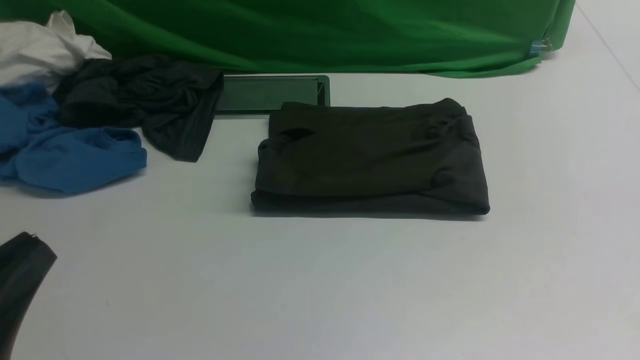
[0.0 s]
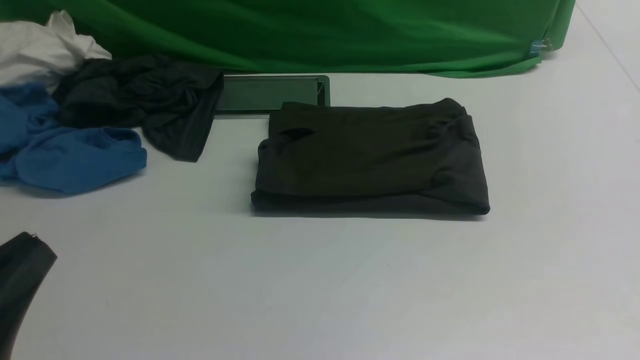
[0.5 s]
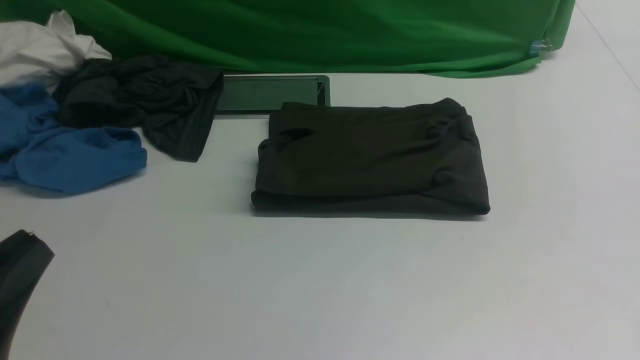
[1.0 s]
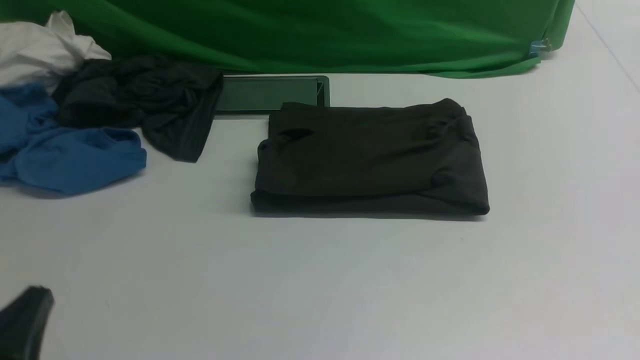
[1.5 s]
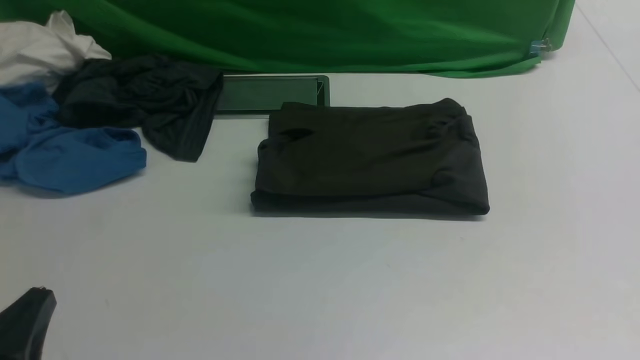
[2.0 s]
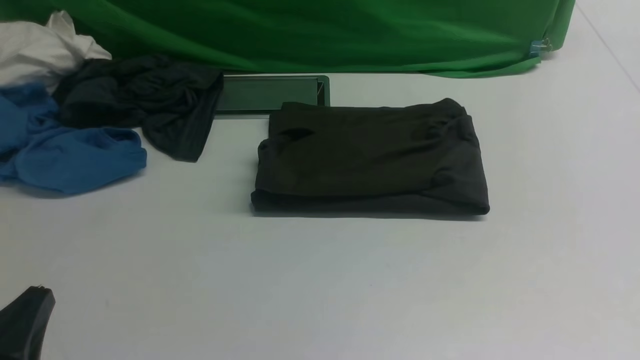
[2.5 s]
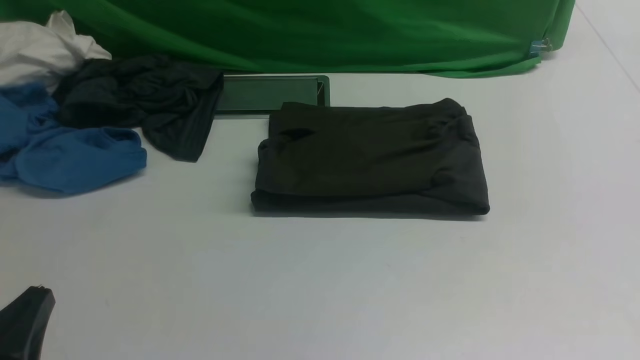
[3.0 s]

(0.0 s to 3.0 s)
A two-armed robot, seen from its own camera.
0.0 s - 1.5 s: The left gripper is displaced downward by some 10 cm.
1.5 s - 3.0 s: The two grippers keep their place.

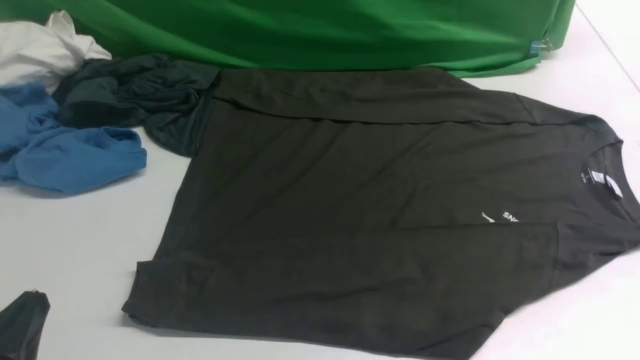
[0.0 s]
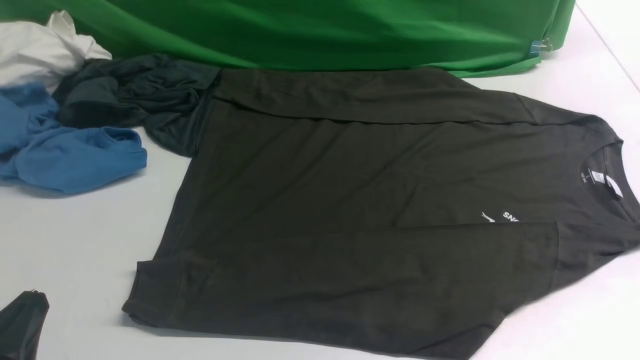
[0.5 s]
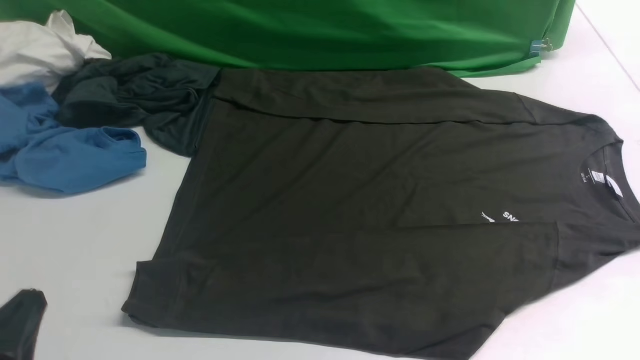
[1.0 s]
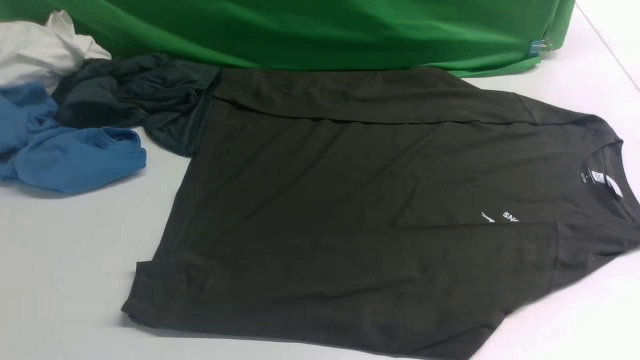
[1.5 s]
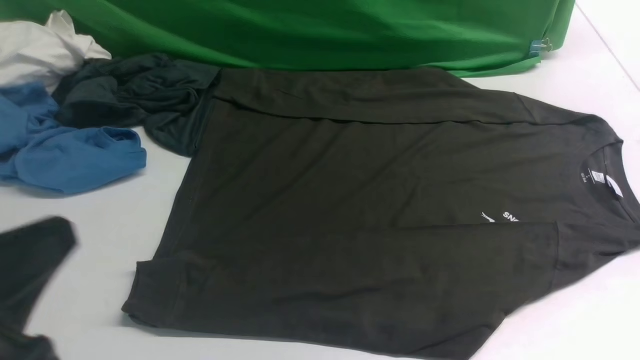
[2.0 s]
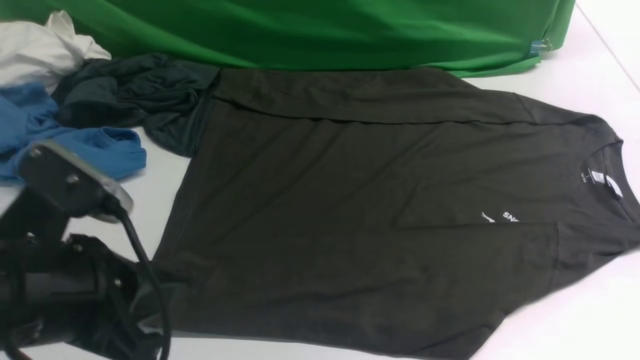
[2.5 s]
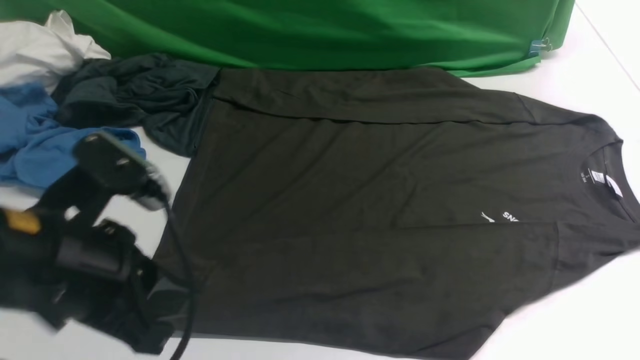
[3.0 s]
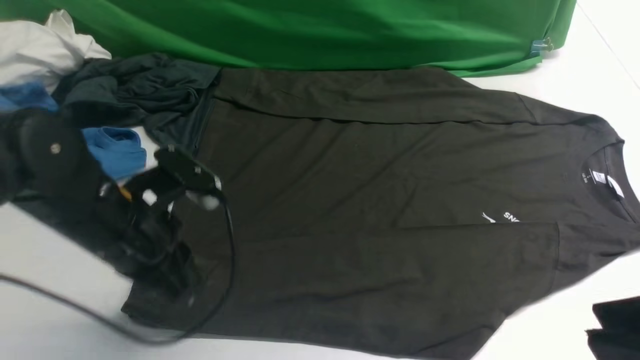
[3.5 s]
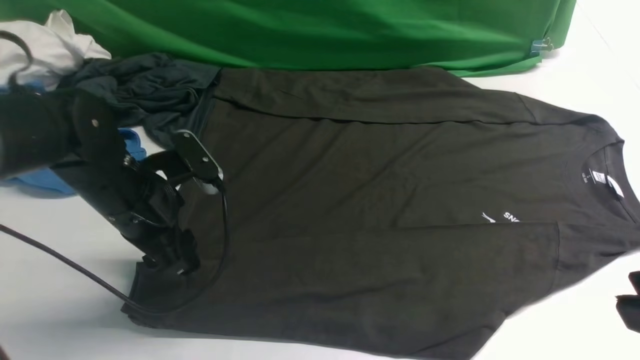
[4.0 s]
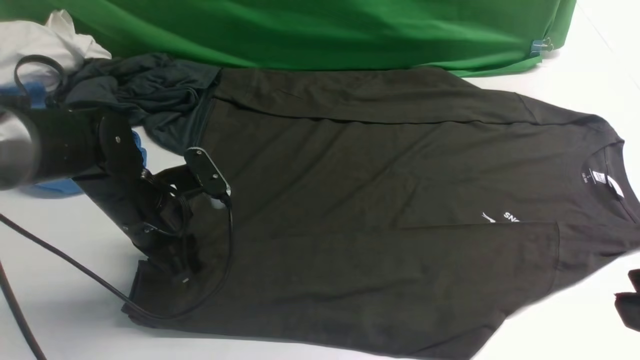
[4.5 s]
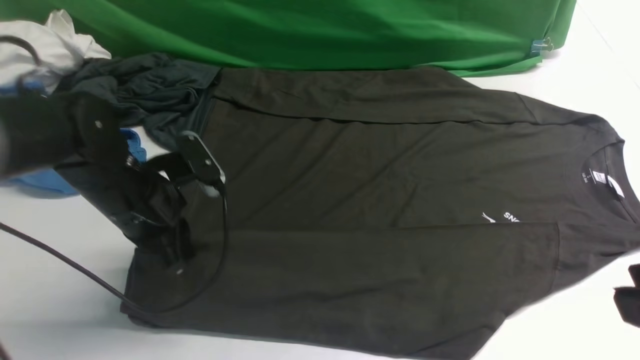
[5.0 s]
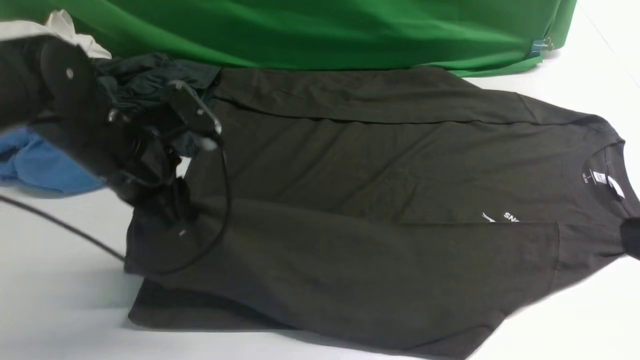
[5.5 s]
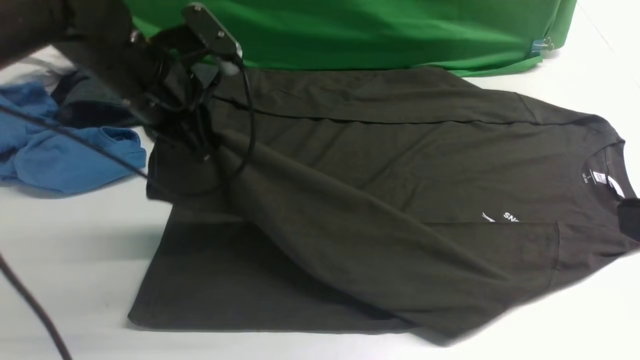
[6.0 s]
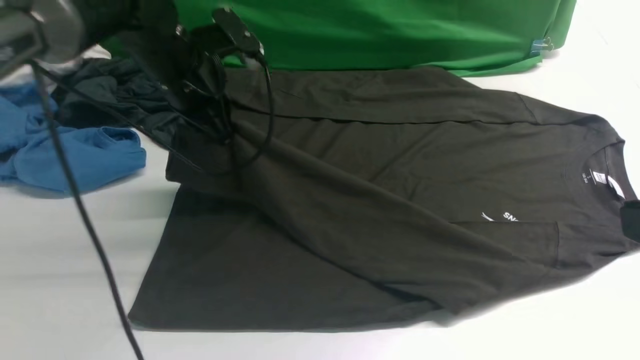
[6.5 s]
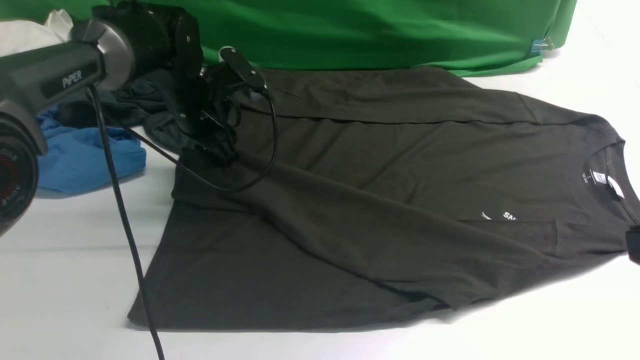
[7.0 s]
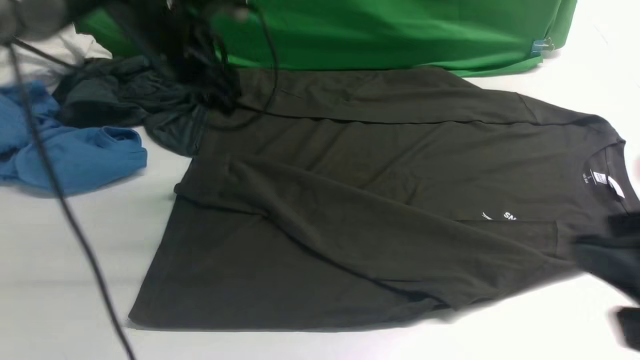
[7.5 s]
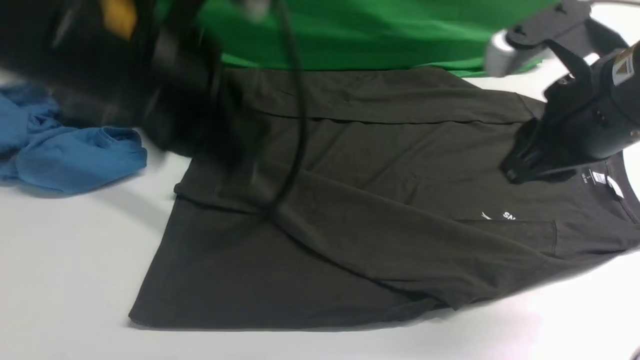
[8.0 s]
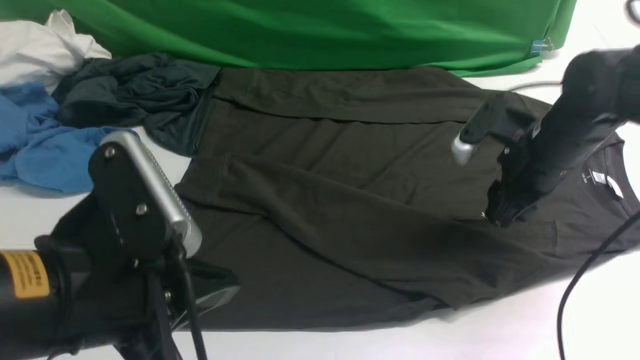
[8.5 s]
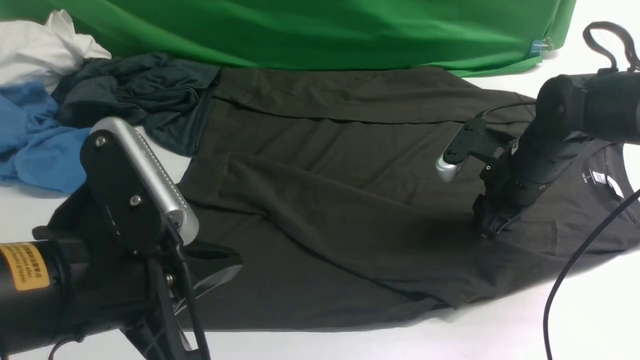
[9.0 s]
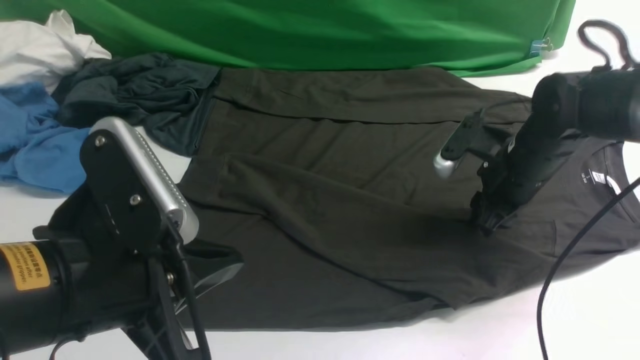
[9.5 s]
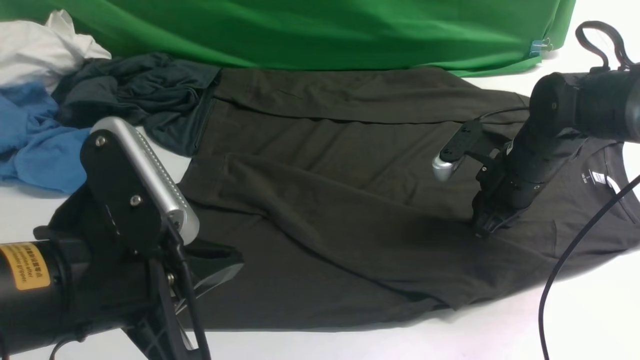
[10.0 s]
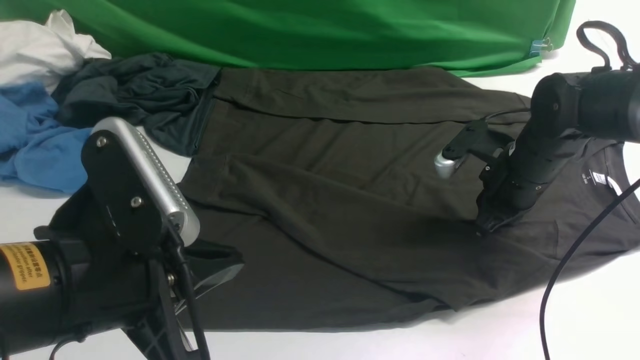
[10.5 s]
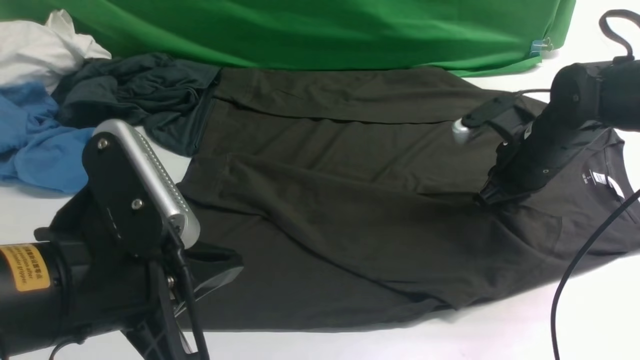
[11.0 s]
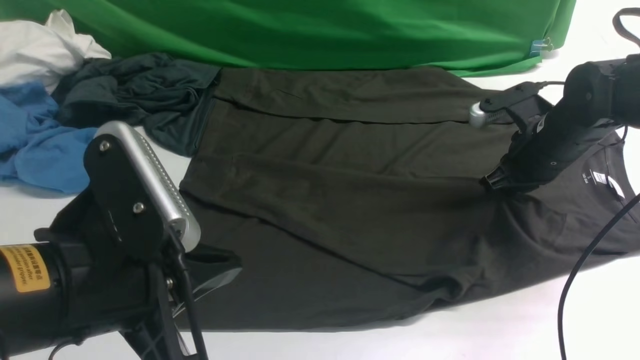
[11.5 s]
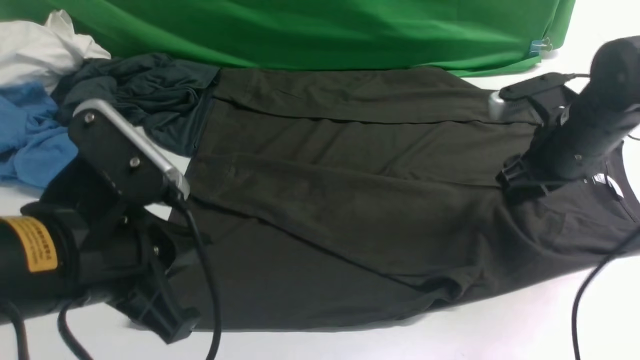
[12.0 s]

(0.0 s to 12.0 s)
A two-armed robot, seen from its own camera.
Step, 0.0 s - 5.0 s: use the left arm to clamp the cuff closest to it.
Step, 5.5 s - 7.0 s: use the left arm to drag and place the cuff at the centered position on the left edge of the fabric.
0.0 s - 2.0 s: The left gripper moves upward, roughly 10 cm.
2.0 s - 4.0 s: The right gripper shifts approximately 20 cm upward and to the left. The left gripper is displaced forward and downward by roughly 25 cm, and opens.
4.0 s - 6.0 s: The left gripper moves upward and forward, roughly 10 cm, and closes.
6.0 s - 8.0 s: The left gripper goes approximately 15 cm backward and upward, and opens, then closes again. The right gripper is displaced forward by some 20 cm.
8.0 s - 10.0 s: The left gripper heads backward and downward, covering roughly 10 cm; the right gripper is displaced downward and forward by approximately 20 cm.
10.0 s - 12.0 s: The right gripper changes place by some 5 cm, and opens its fingers.

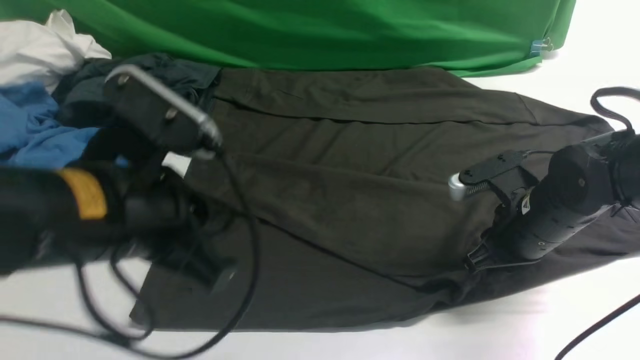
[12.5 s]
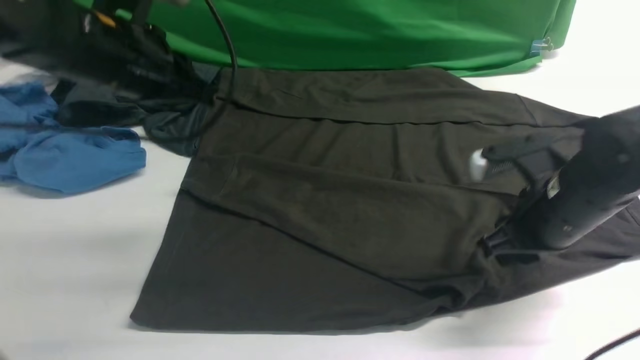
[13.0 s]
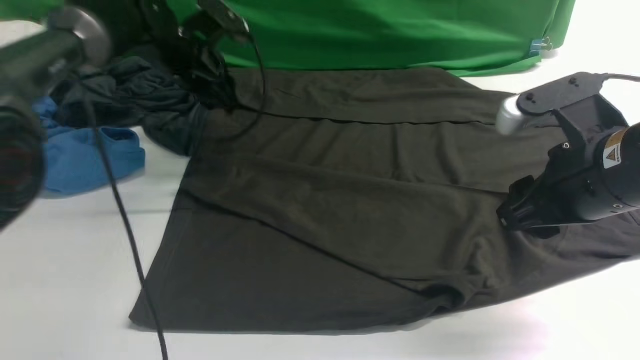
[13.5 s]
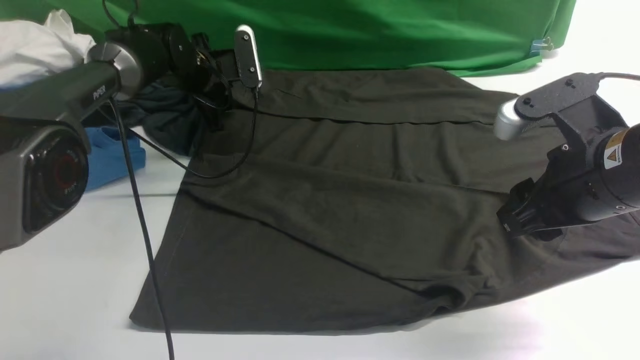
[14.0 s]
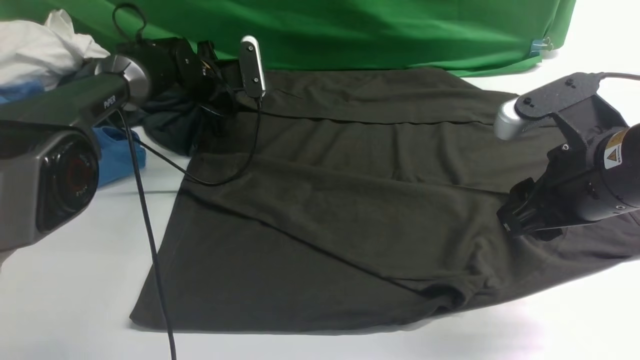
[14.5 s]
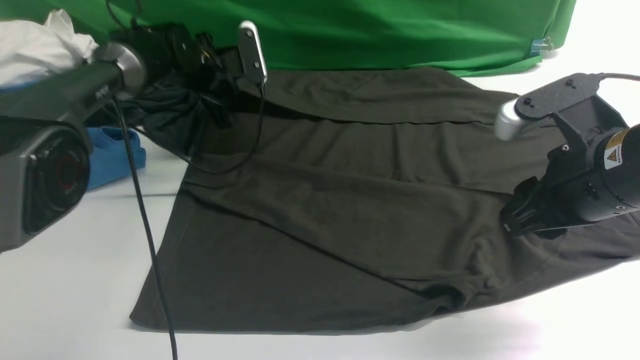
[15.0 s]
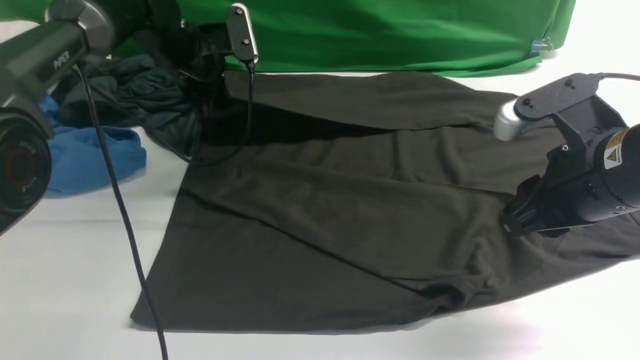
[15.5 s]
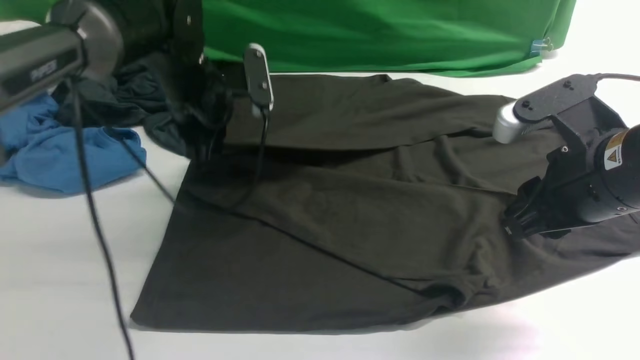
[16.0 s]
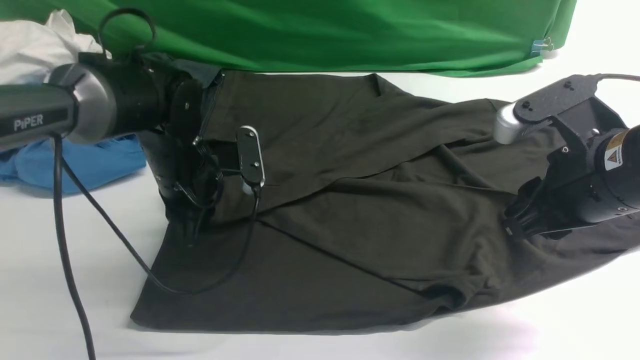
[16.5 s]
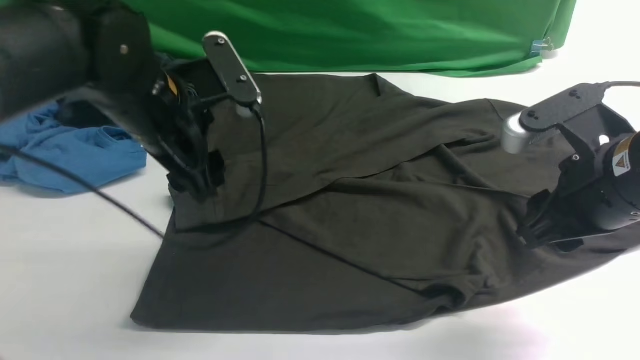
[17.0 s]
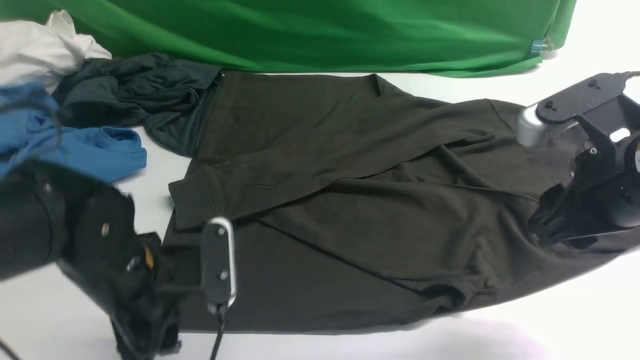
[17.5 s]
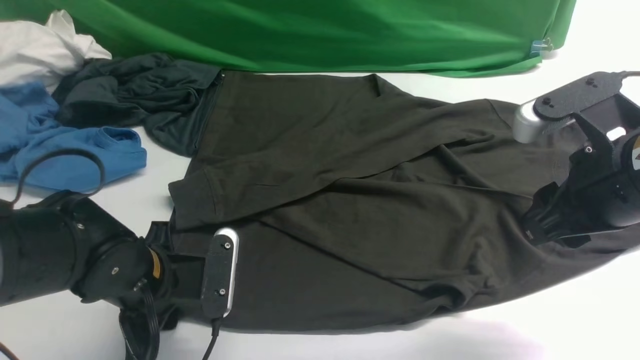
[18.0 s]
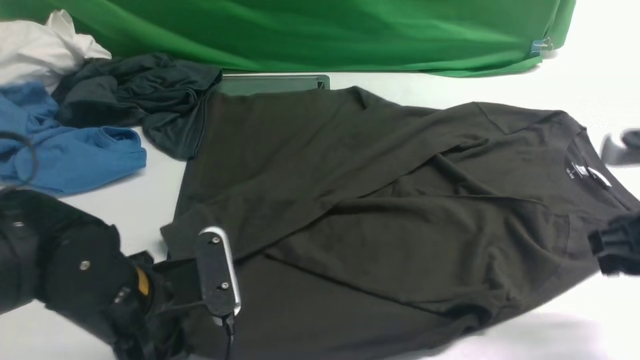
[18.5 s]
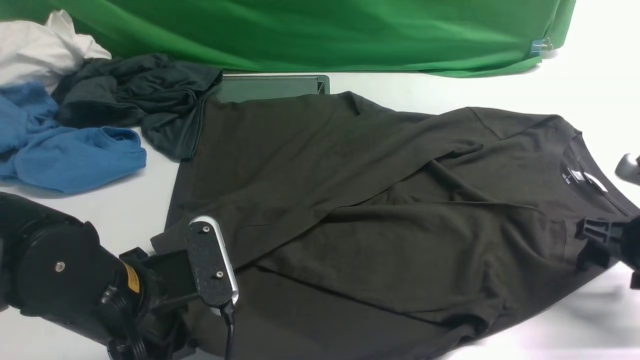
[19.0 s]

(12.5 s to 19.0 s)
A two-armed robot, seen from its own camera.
Step, 12.5 s - 14.5 s: use the left arm to clamp the cuff farthest from it.
Step, 15.0 s - 16.5 s: use the left arm to drag and drop the cuff onto the cuff closest to the left arm.
12.5 s - 14.5 s: The left gripper shifts some 40 cm forward and downward, and opens. The right gripper is displaced upward and backward by some 15 cm, and opens its fingers.
14.5 s - 17.0 s: The left gripper heads backward and upward, covering about 25 cm, and closes, then reopens.
17.0 s - 19.0 s: The left gripper is displaced backward and downward by roughly 15 cm, and closes up. Meanwhile the right gripper is displaced downward and to the right by approximately 15 cm.
